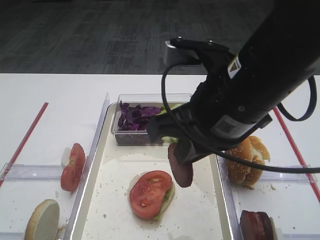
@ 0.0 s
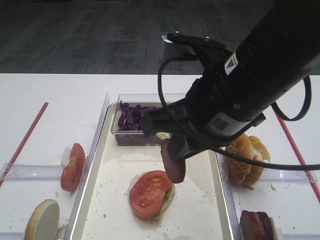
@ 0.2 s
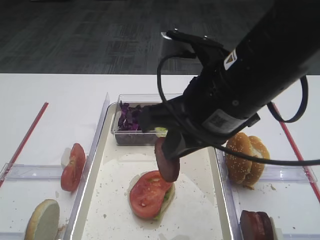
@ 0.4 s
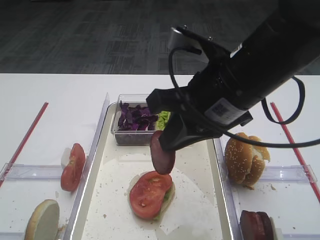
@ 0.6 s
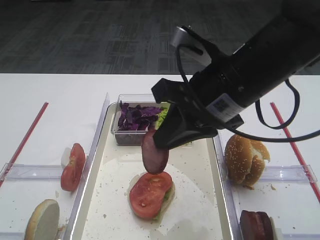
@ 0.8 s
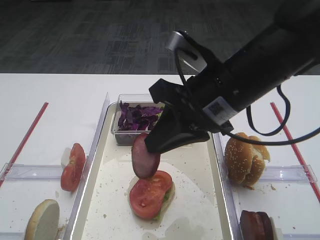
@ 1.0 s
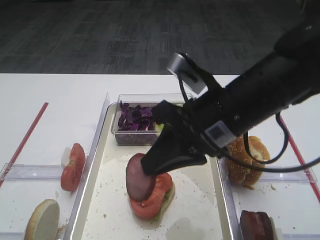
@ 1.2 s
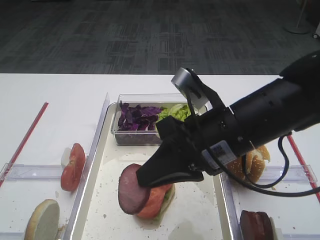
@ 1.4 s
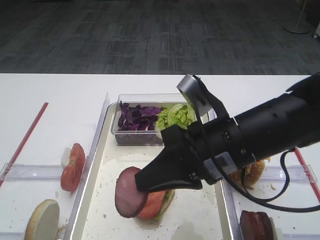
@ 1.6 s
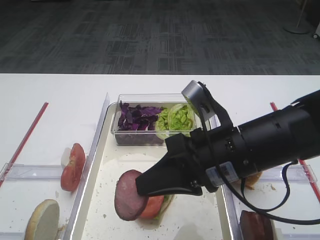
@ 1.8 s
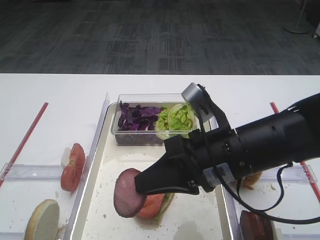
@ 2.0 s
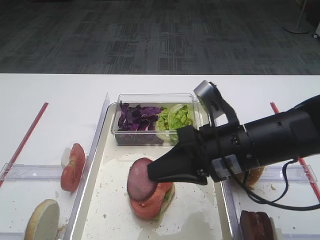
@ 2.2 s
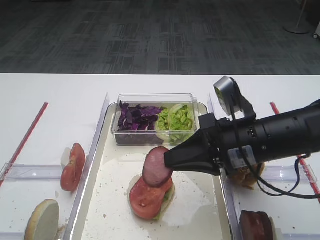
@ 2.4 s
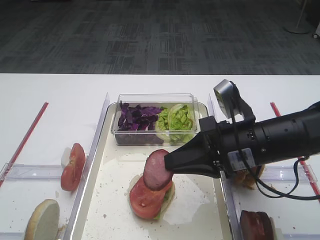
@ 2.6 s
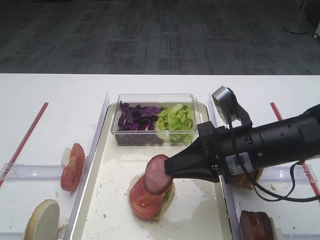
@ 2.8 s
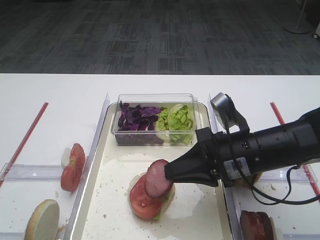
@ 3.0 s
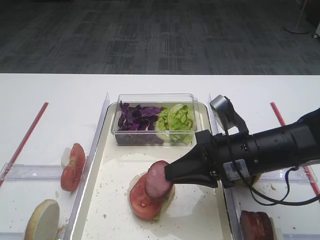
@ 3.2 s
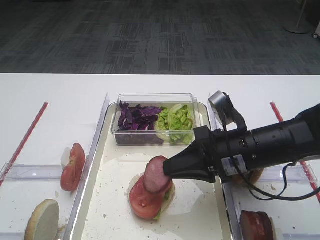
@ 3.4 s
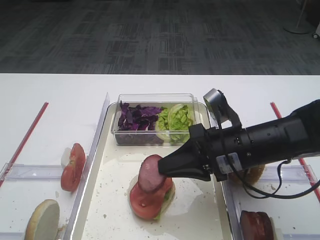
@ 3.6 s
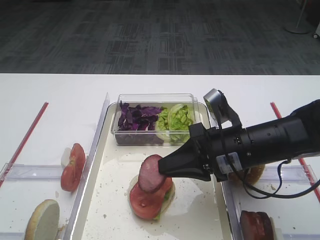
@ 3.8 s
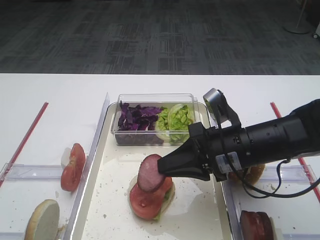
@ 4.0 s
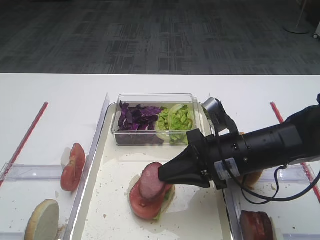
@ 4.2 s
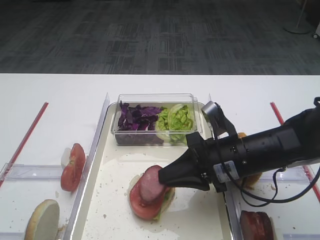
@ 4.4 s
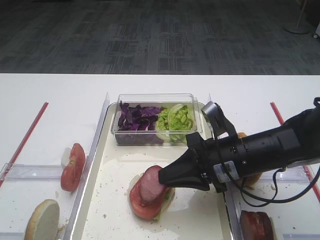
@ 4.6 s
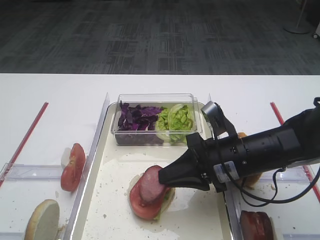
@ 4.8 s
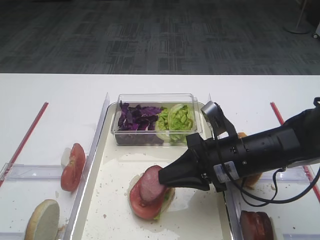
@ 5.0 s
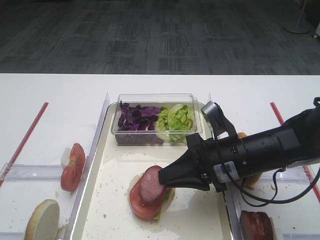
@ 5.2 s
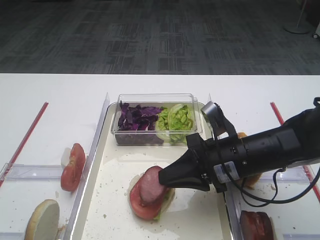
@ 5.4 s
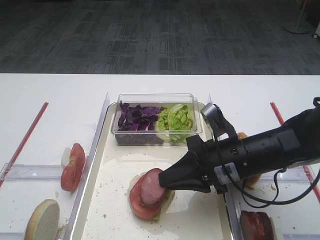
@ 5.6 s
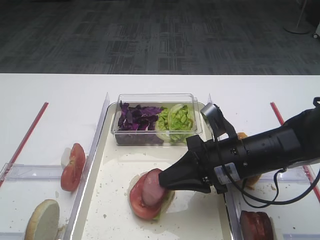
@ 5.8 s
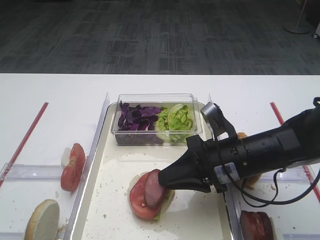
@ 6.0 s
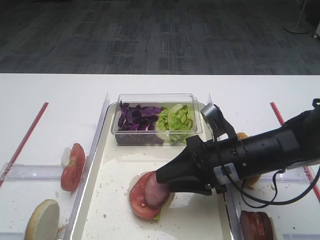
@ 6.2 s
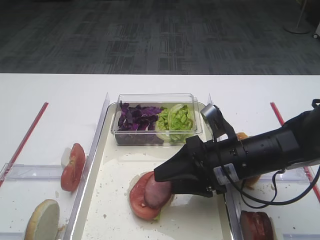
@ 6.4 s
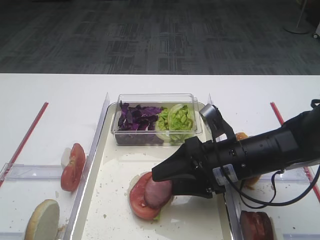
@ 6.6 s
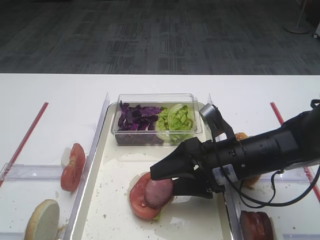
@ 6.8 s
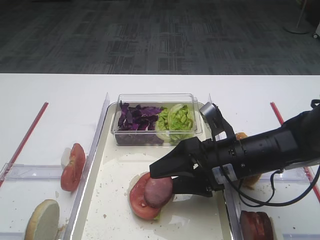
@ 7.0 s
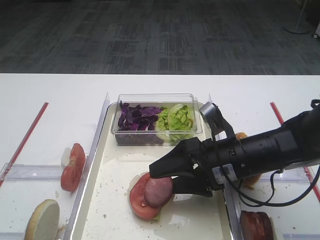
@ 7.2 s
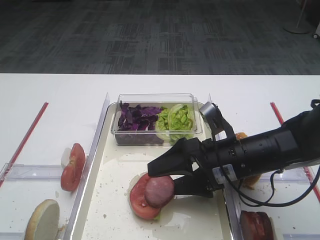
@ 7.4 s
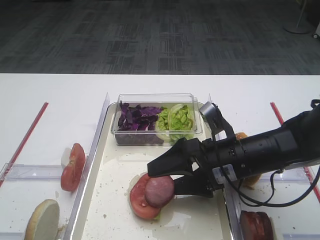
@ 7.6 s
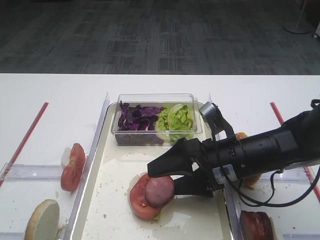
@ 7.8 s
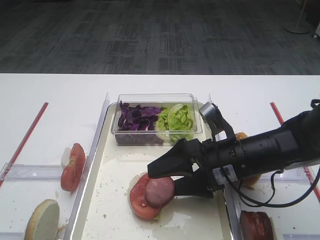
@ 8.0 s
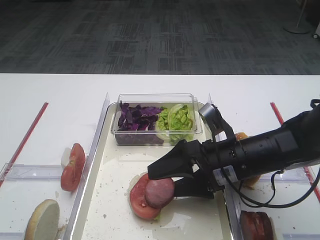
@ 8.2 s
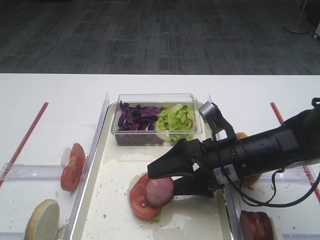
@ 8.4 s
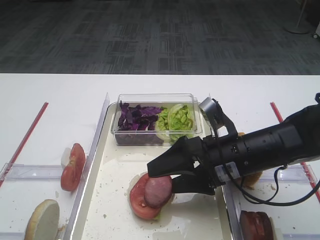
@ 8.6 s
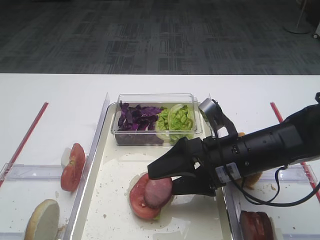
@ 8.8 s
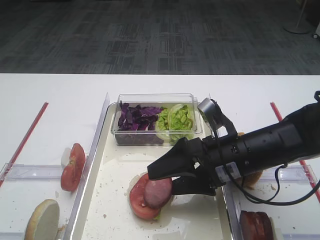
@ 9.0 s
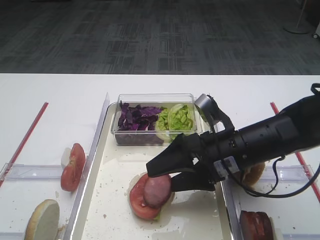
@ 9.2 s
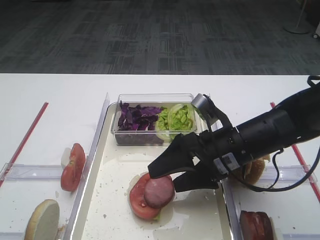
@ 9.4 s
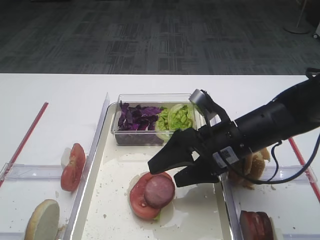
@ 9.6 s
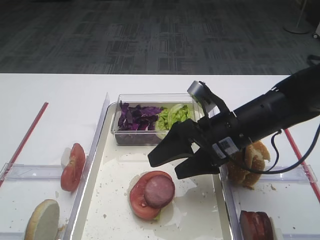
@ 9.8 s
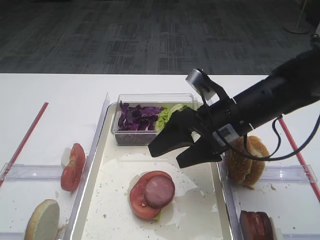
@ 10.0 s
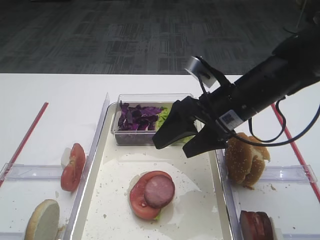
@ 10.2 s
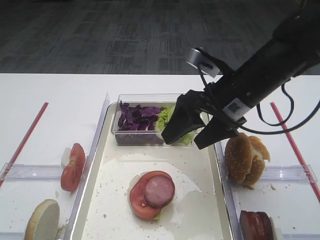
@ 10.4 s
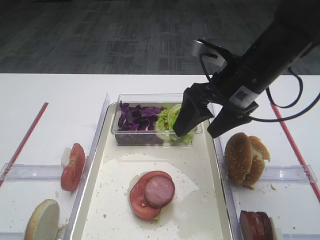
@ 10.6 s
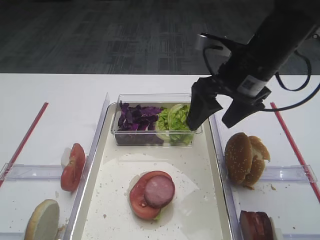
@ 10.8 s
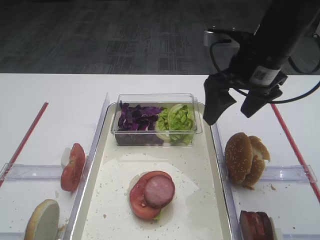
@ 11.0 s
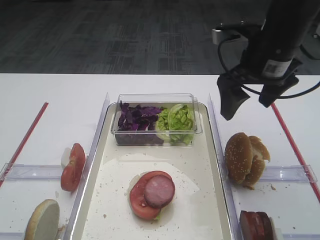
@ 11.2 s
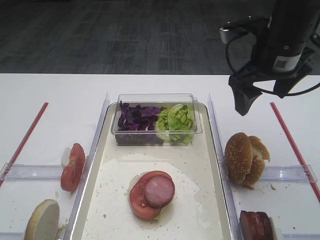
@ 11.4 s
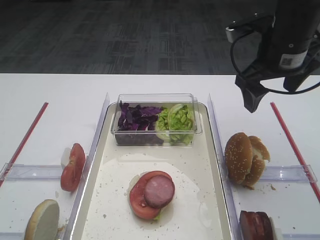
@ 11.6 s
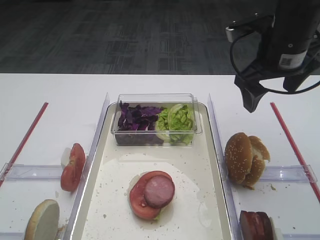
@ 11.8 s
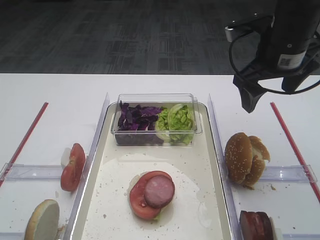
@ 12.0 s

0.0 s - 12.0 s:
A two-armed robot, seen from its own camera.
Step, 0.0 s - 9.6 s: Place the cutlet on the tomato slice with the right gripper.
0.0 s - 1.6 s: The right gripper shifts some 10 cm downward.
1.6 s - 3.0 s: The right gripper moves downward, about 5 cm.
3.0 s - 4.4 s: There are only small adjustments of the grippers.
4.4 s - 6.0 s: The two grippers keep their place.
6.0 s - 7.6 s: The right gripper opens up.
7.6 s - 9.0 s: The two grippers keep their place.
9.0 s - 10.4 s: The right gripper heads upward and forward, covering approximately 10 cm.
10.4 s - 12.0 s: The right gripper is displaced to the right and upward by some 10 cm.

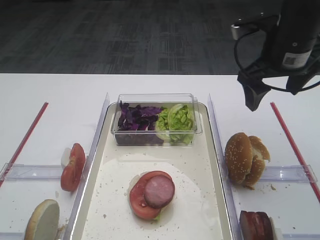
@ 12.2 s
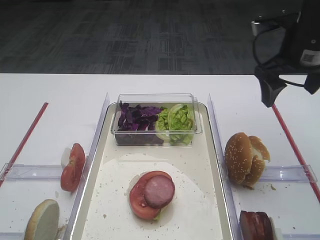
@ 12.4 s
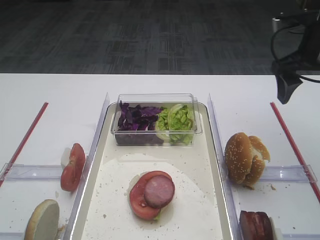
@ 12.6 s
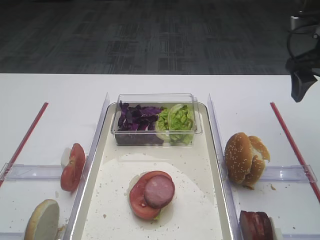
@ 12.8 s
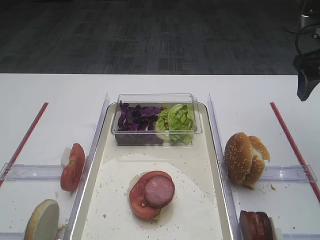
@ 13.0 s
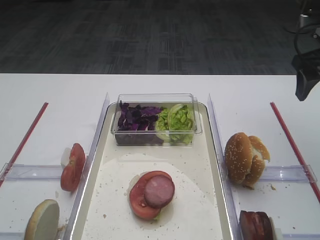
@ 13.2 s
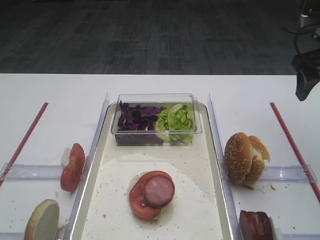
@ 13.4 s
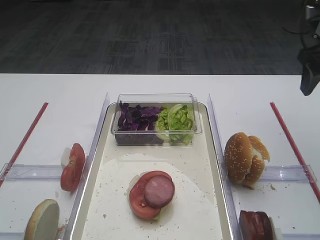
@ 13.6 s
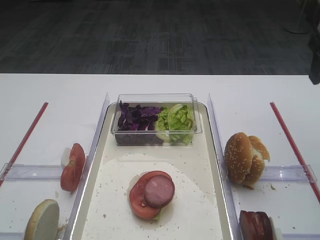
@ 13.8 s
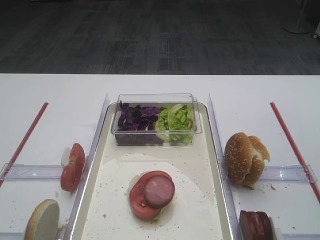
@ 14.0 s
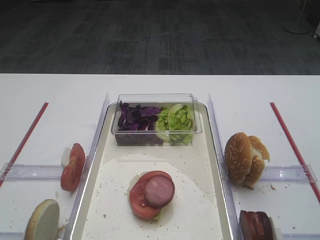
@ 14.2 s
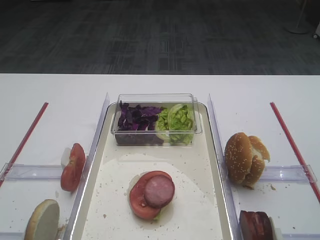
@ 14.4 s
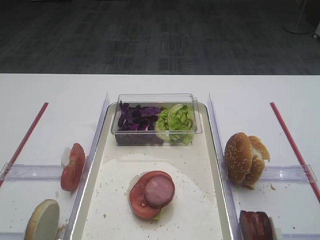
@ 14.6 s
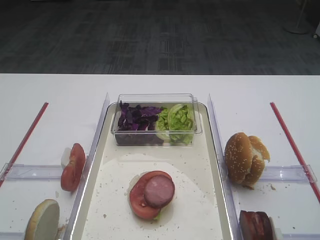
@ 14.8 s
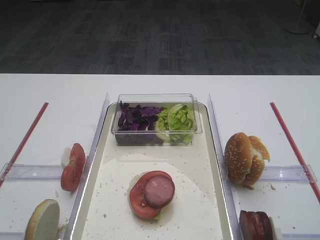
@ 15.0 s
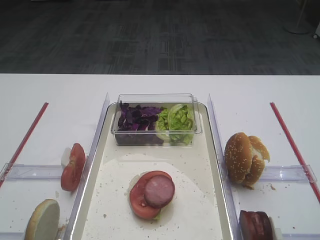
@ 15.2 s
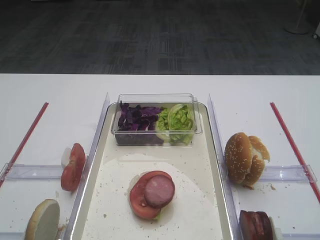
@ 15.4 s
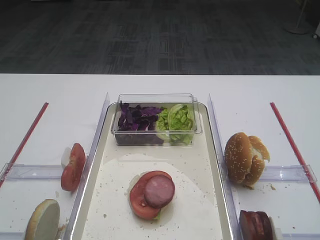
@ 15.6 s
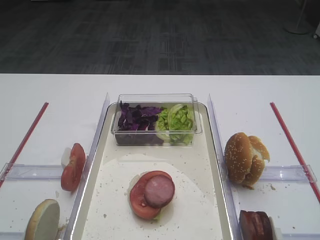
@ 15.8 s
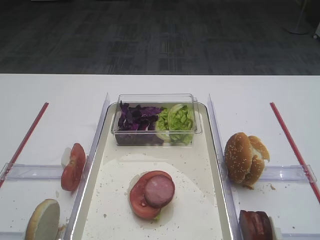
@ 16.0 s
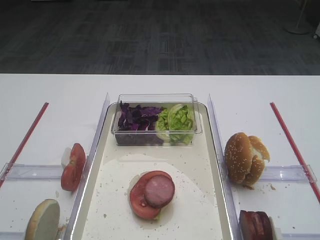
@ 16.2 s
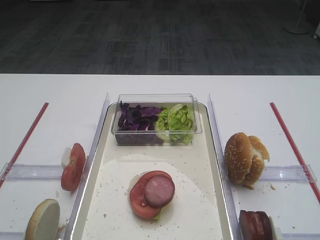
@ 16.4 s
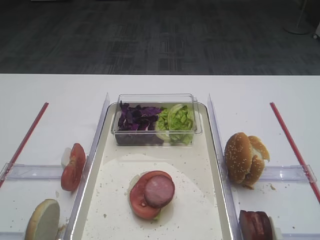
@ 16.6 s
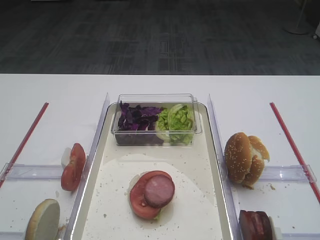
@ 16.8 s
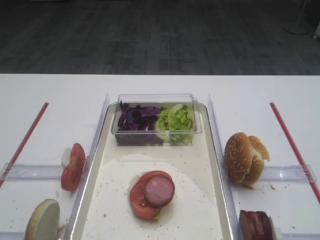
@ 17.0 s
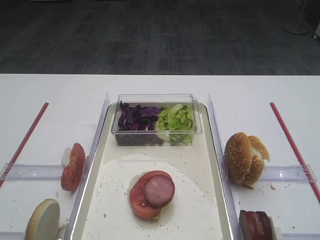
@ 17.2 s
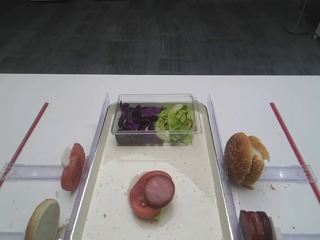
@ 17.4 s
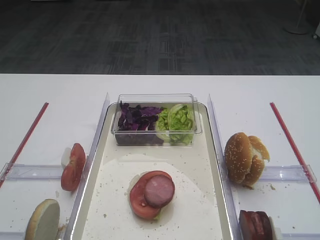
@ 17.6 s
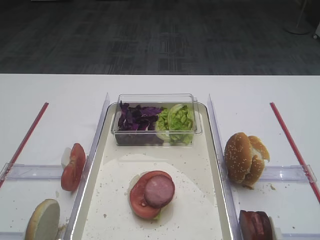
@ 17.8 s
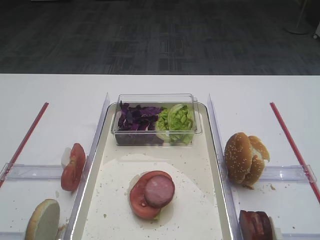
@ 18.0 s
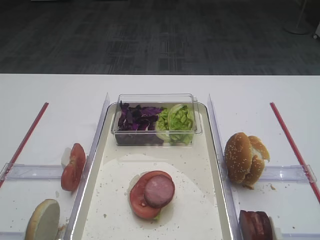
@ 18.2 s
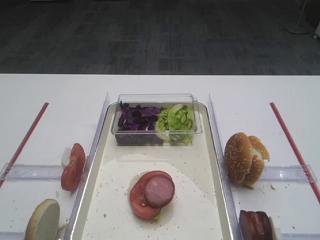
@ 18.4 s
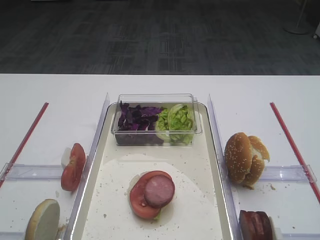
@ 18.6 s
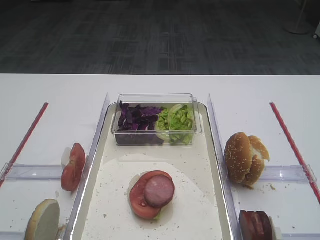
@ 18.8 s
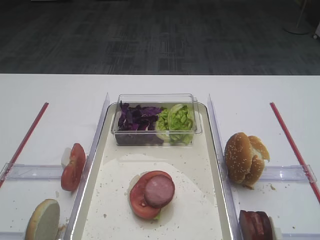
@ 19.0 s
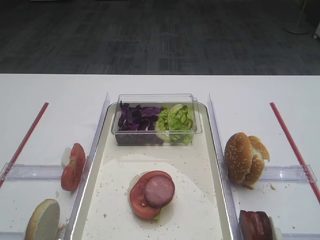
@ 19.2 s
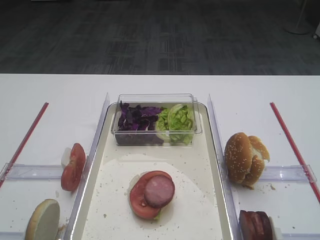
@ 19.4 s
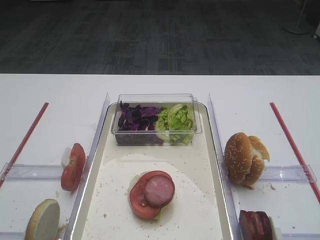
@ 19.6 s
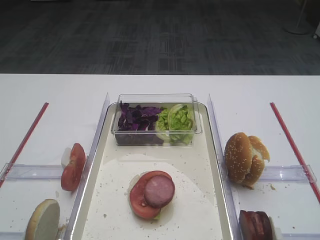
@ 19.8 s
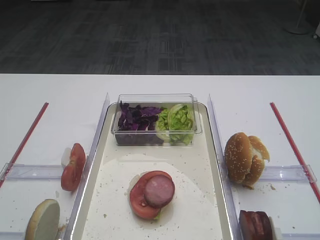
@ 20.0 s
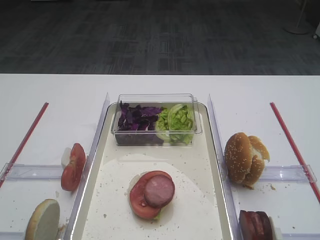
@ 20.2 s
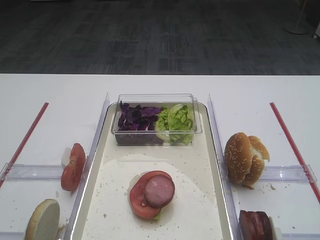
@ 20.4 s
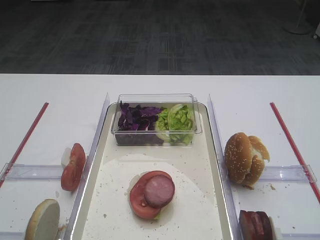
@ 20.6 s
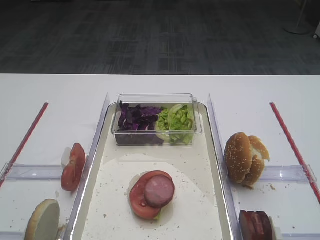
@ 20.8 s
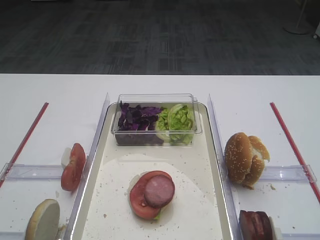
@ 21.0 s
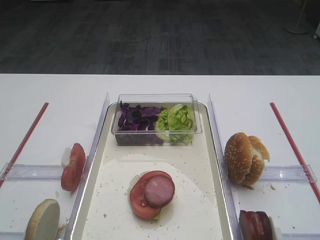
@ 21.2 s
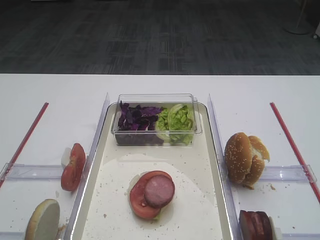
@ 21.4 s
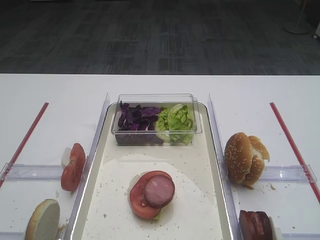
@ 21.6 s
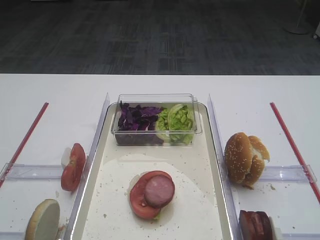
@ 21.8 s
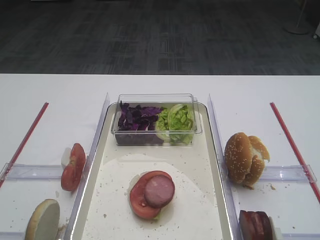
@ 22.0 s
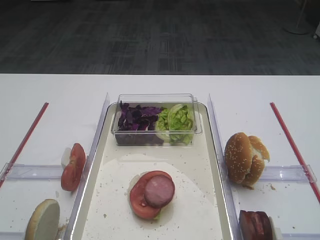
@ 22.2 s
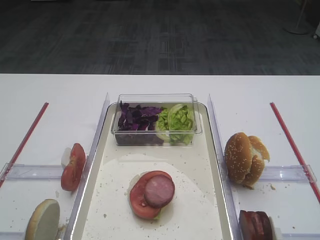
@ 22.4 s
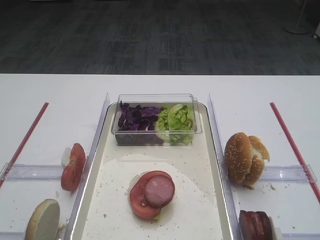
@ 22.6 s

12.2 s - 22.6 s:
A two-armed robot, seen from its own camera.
12.2 s - 13.6 s: The right gripper goes approximately 10 cm to the right.
13.6 s - 15.2 s: The right gripper heads backward, covering some 30 cm.
16.6 s - 22.6 s: Both grippers stay about where they are.
